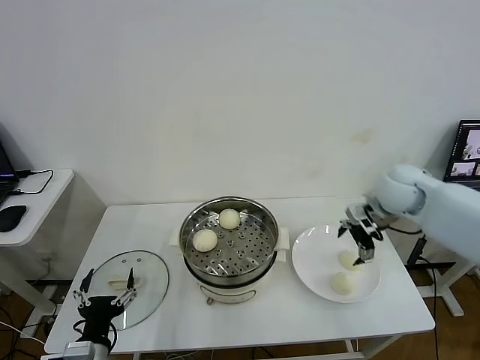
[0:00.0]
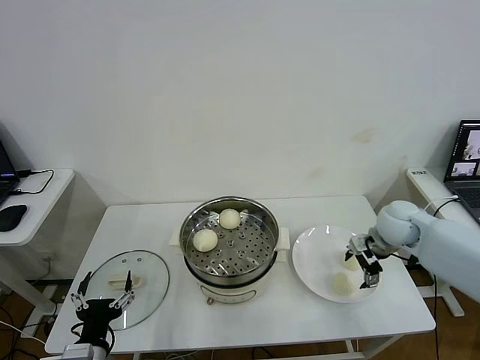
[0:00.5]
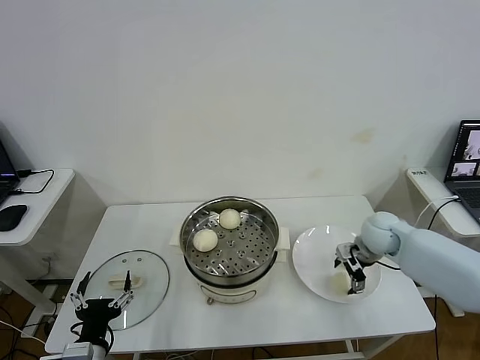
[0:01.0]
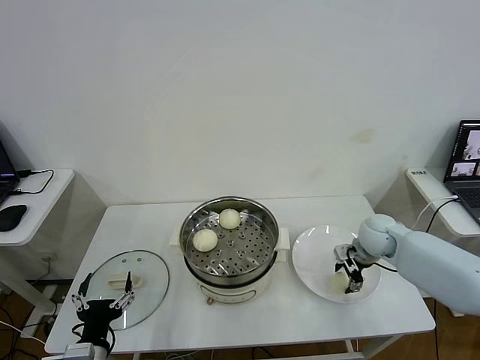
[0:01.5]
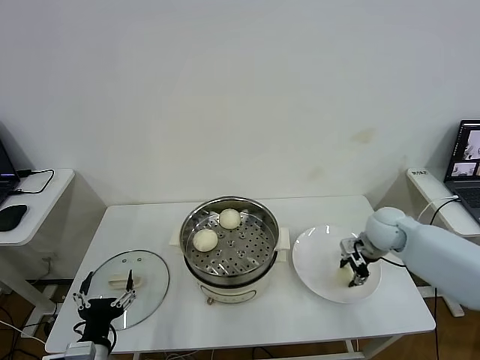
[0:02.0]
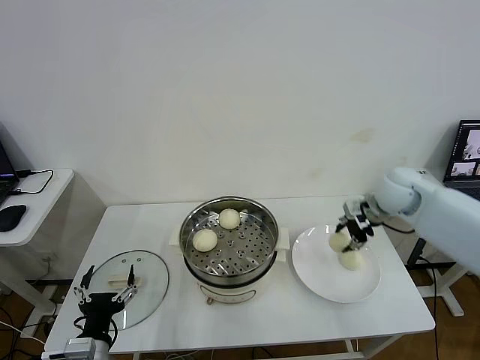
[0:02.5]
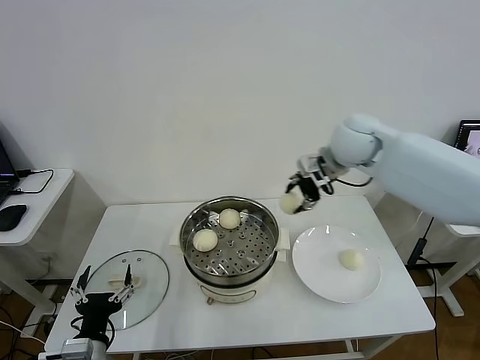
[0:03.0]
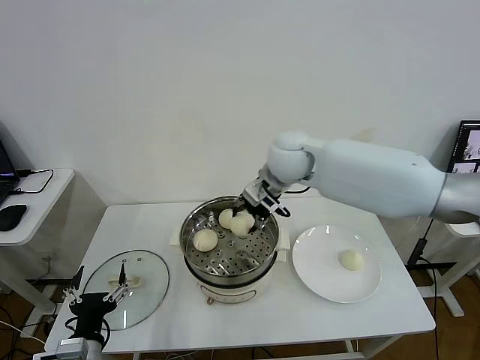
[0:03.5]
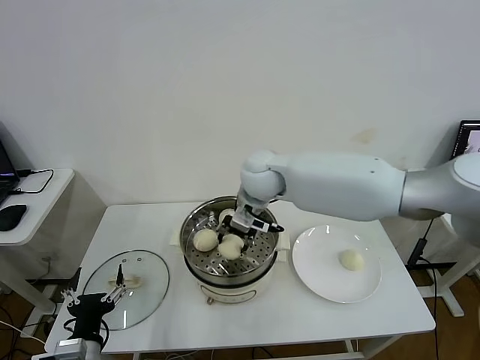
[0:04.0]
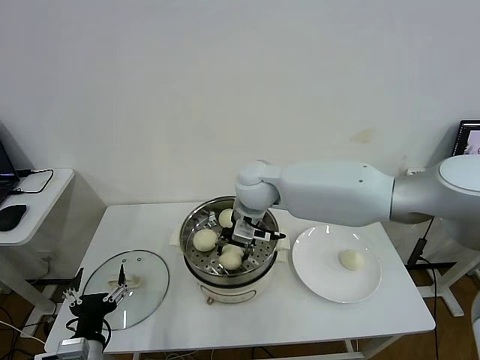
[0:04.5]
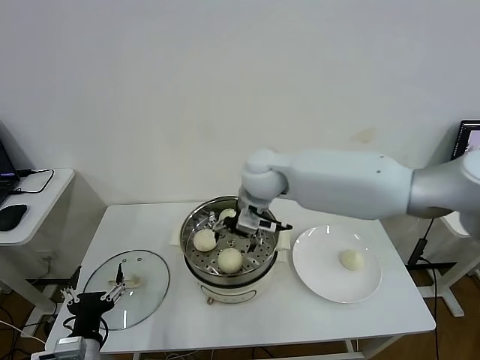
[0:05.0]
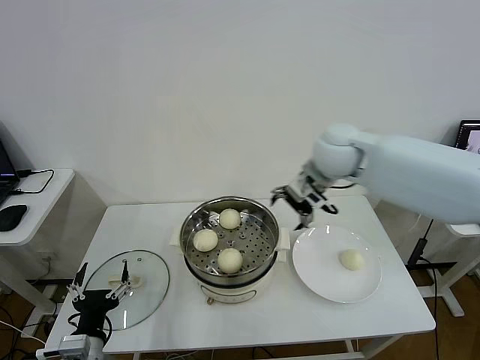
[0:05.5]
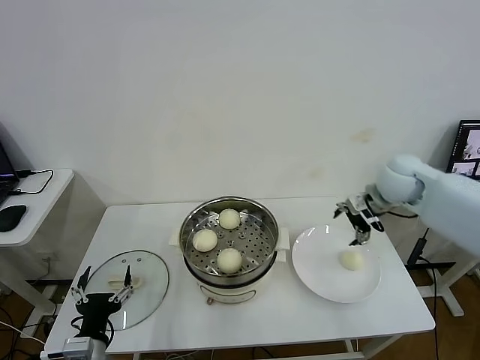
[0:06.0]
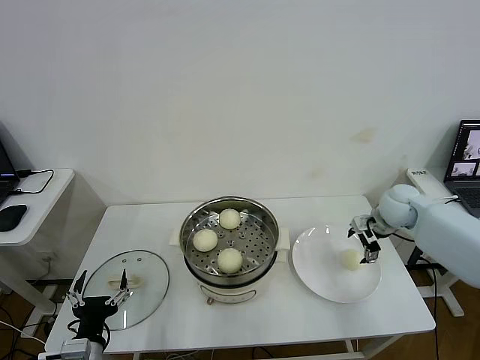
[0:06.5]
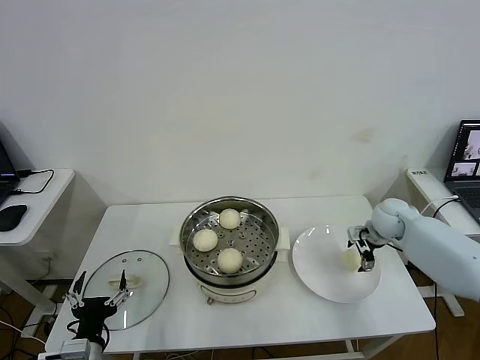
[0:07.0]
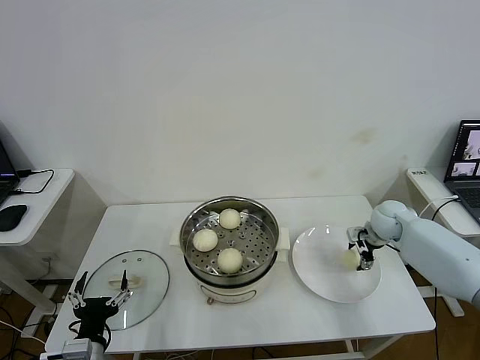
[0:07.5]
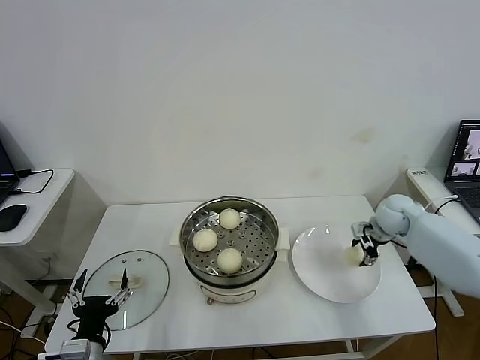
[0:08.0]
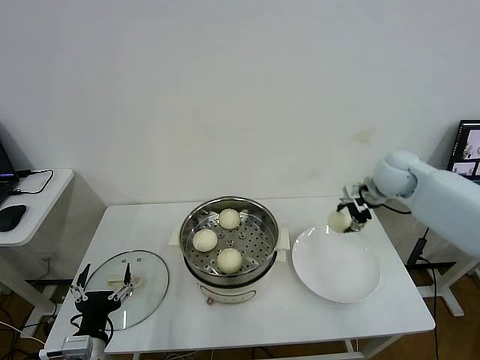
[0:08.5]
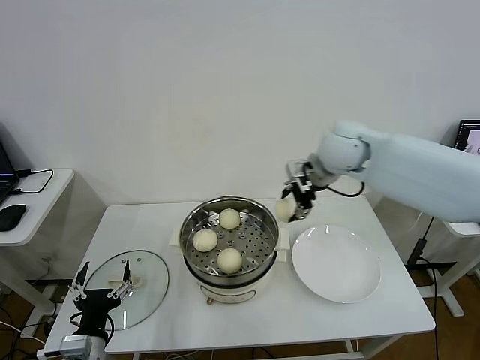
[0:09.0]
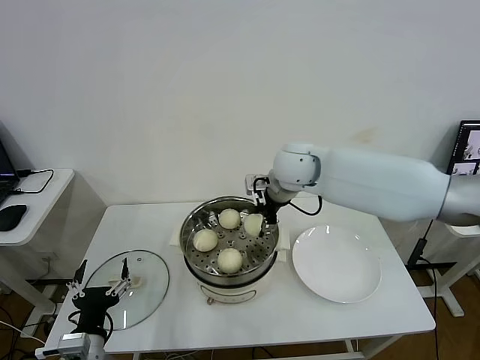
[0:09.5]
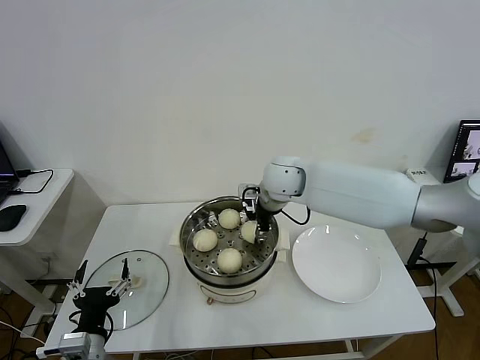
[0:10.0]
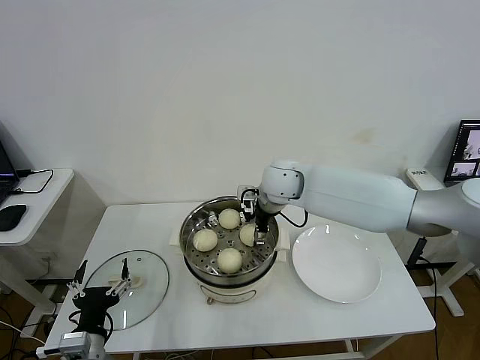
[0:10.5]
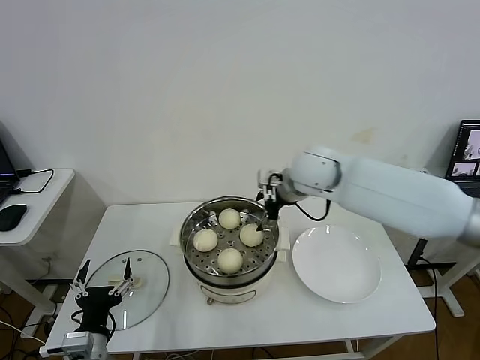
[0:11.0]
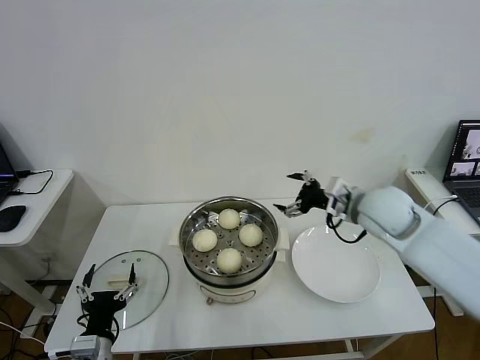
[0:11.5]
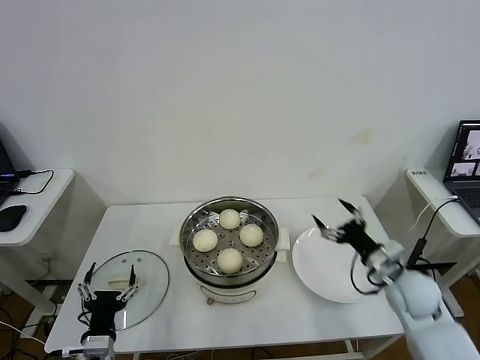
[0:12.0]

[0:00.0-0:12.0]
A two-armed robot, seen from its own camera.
Step, 0:02.0 to 0:04.5: Place the baozi on the steamer with right gripper.
Step, 0:05.0 to 0:07.5: Grasp the baozi in the plate with right gripper.
Step, 0:08.0 to 0:10.5: Place the baozi on the steamer with right gripper.
0:00.0 to 0:02.0: The right gripper moves downward, roughly 10 cm, and closes.
0:02.0 to 0:04.0: The right gripper moves to the left and upward, about 35 cm.
0:04.0 to 0:06.0: The right gripper is displaced to the right by roughly 30 cm, and opens.
0:06.0 to 0:08.0: The right gripper is displaced downward by some 10 cm, and closes its fingers.
0:08.0 to 0:10.0: The right gripper travels to the left by about 30 cm.
0:10.0 to 0:12.0: The right gripper travels to the right, backward and downward by about 35 cm, and opens.

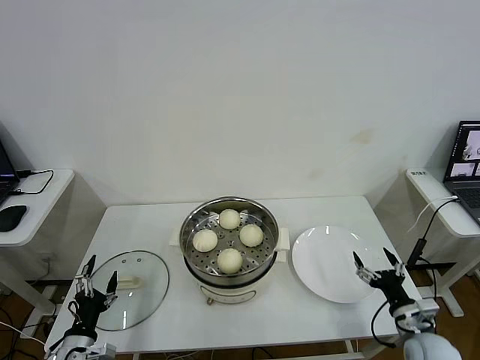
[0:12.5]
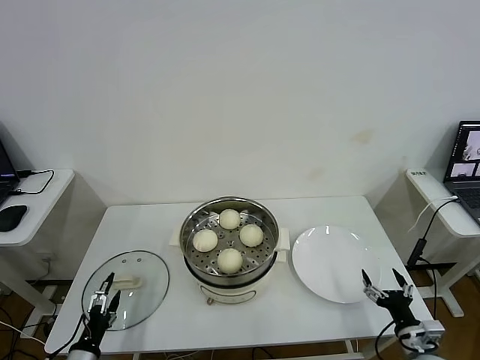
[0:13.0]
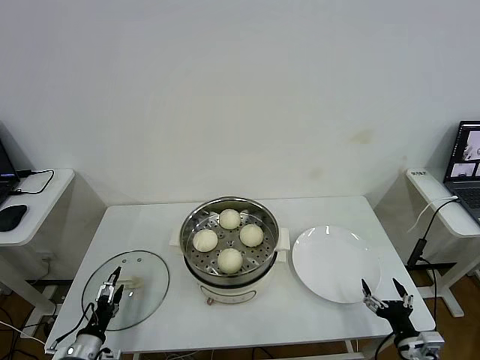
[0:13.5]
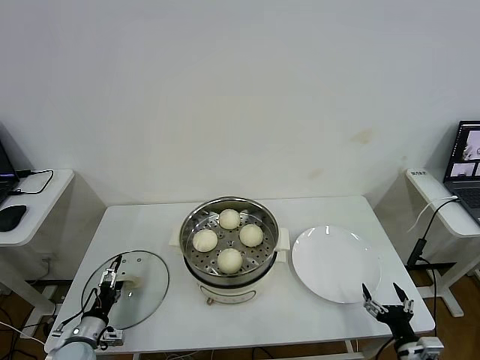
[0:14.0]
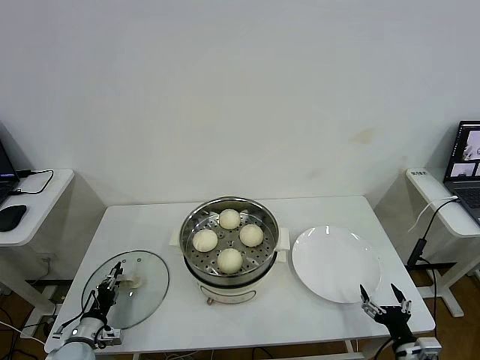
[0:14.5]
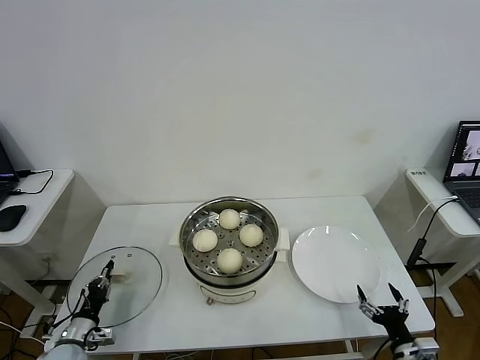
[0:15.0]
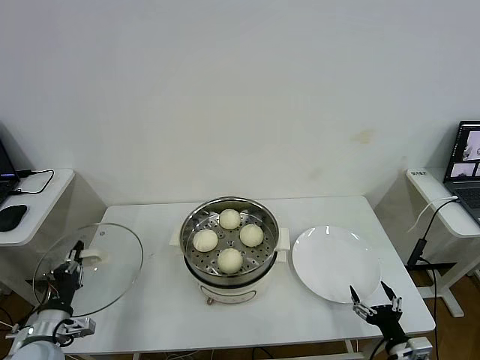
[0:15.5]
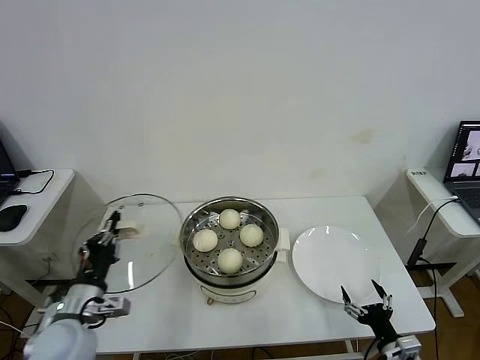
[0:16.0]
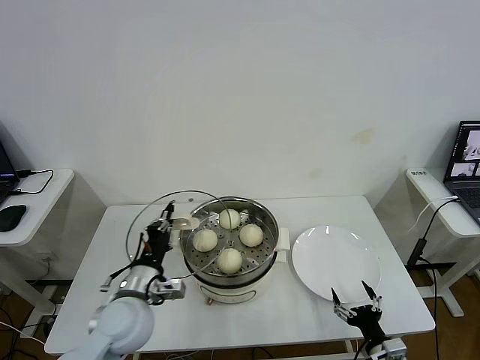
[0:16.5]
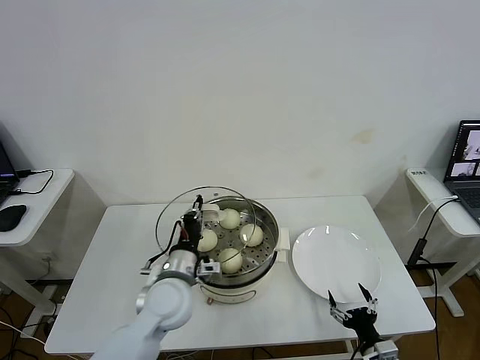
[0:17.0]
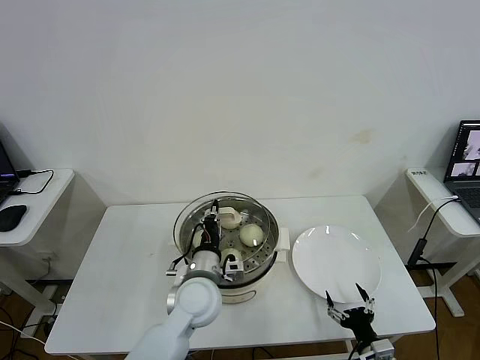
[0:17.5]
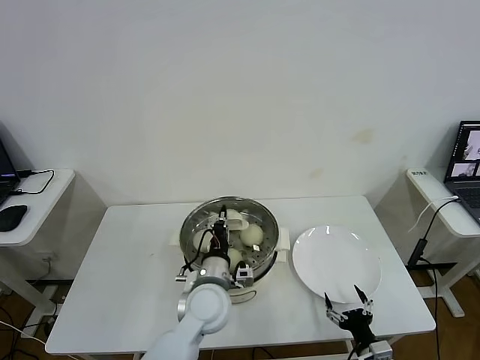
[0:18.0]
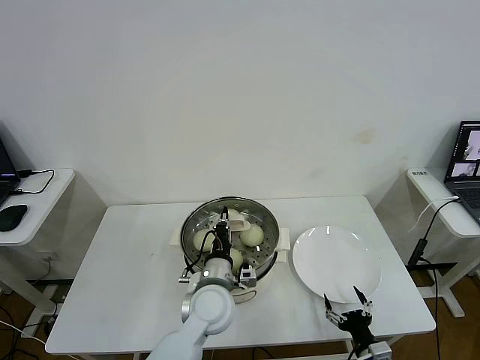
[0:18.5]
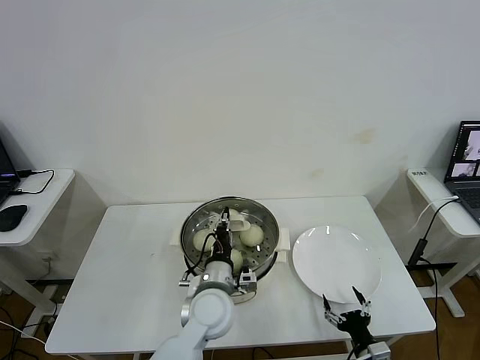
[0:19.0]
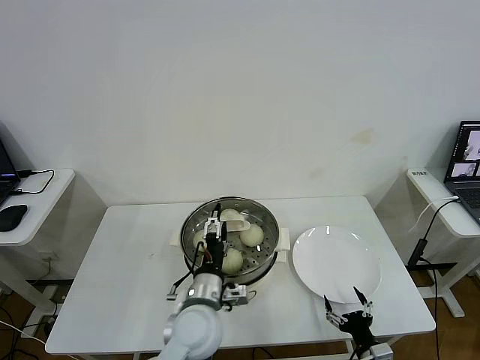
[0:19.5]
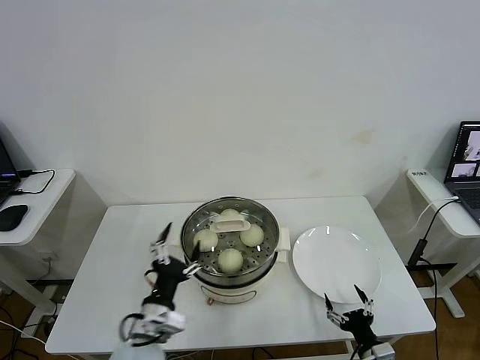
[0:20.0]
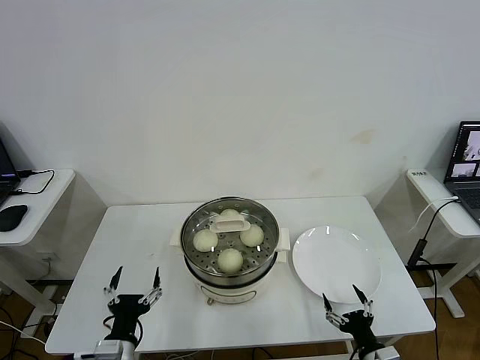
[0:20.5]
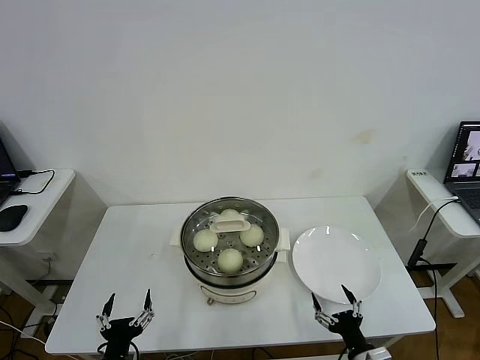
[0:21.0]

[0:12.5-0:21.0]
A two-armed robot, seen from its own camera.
Step, 0:12.5 to 0:14.5: Grasp the pot lid with left gripper.
Step, 0:15.0 to 0:19.0: Place the pot lid on the steamer with left gripper.
0:12.5 to 0:14.5: The left gripper is displaced downward, forward and to the left by about 10 cm, and closes up, while the right gripper moves backward, approximately 5 cm.
0:14.5 to 0:16.5: The right gripper heads to the left, covering roughly 5 cm, while the left gripper travels upward and to the right by about 30 cm, and closes.
0:16.5 to 0:19.0: The left gripper is displaced to the right by some 15 cm.
0:19.0 to 0:21.0: The left gripper goes approximately 25 cm to the left and backward, and opens.
